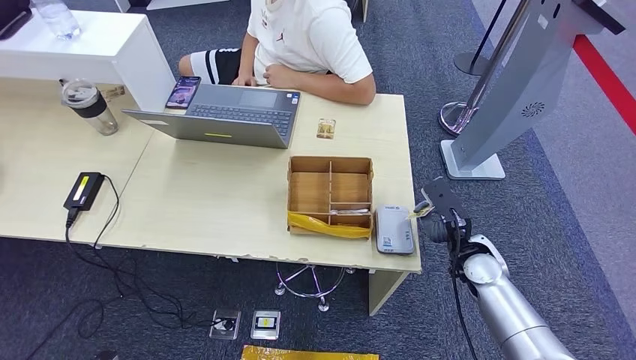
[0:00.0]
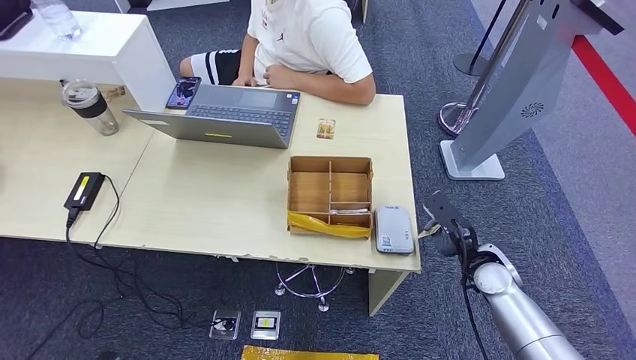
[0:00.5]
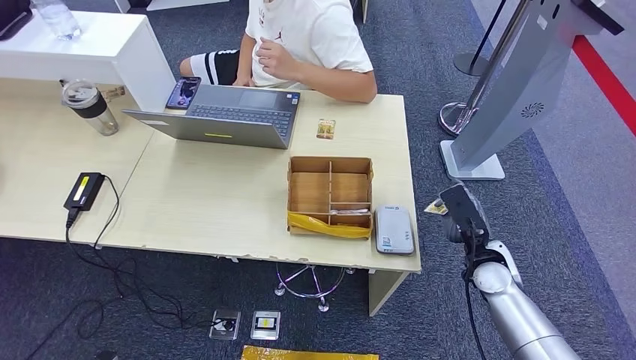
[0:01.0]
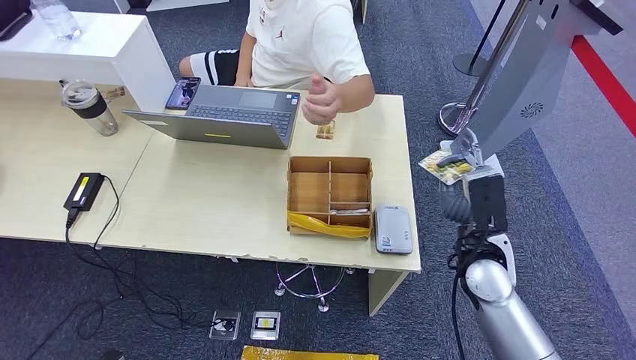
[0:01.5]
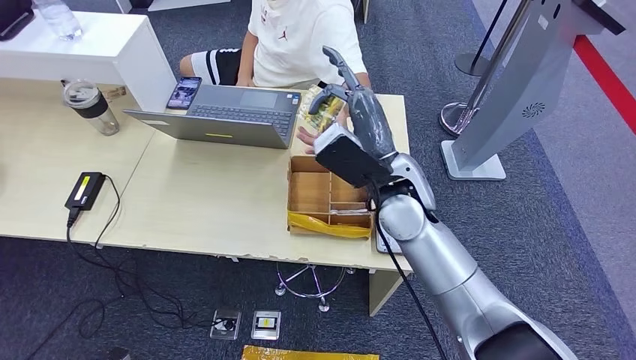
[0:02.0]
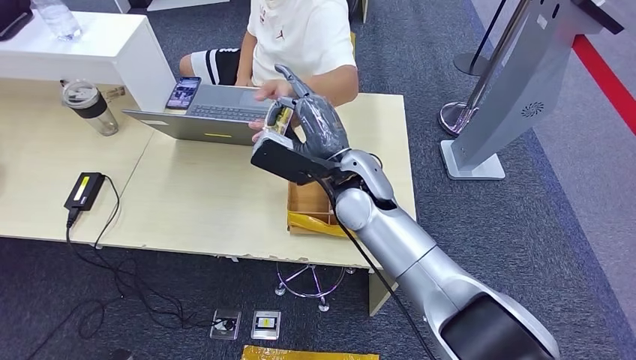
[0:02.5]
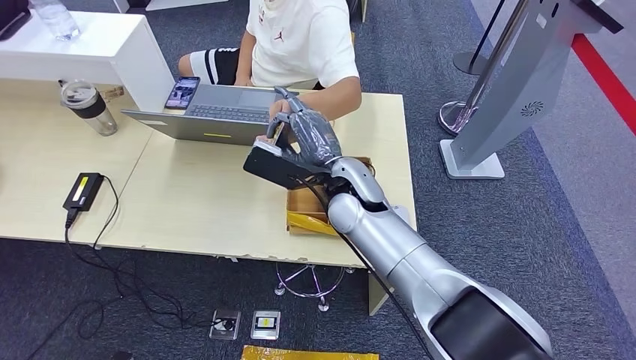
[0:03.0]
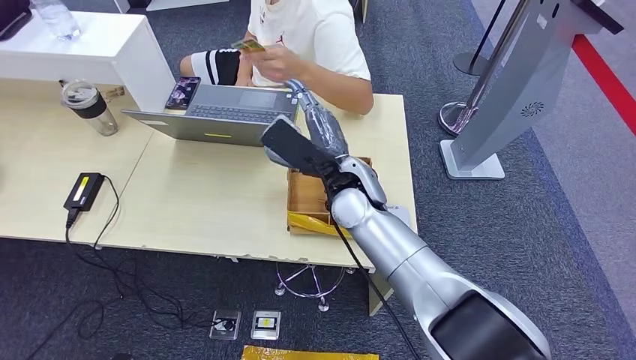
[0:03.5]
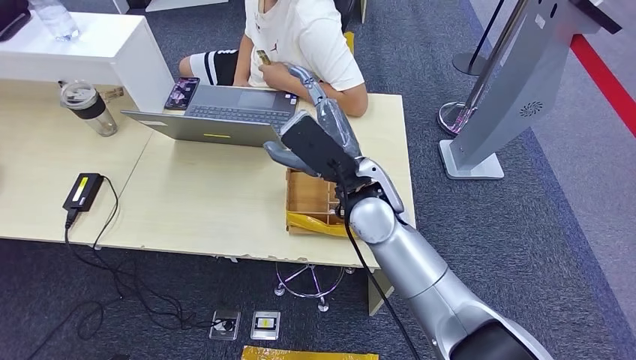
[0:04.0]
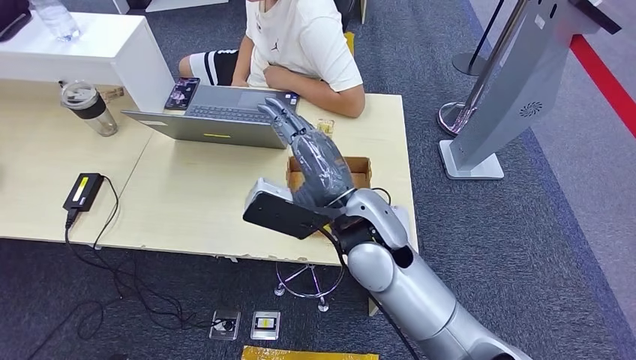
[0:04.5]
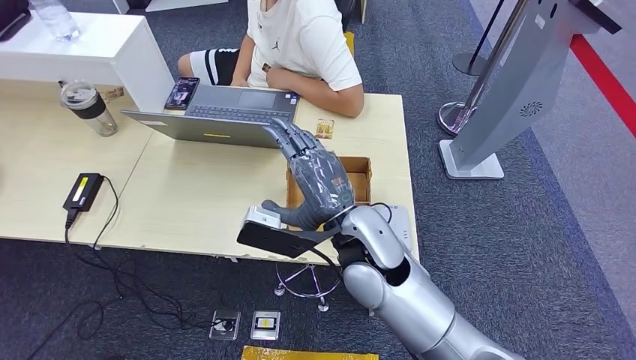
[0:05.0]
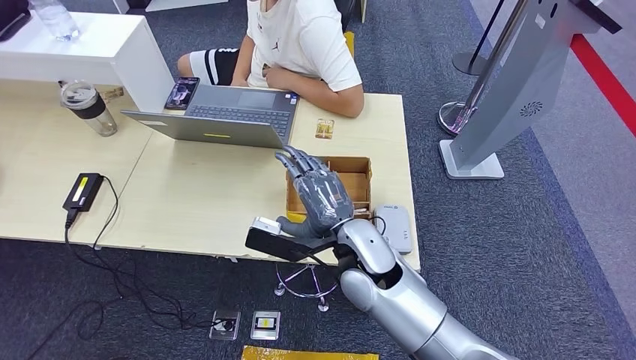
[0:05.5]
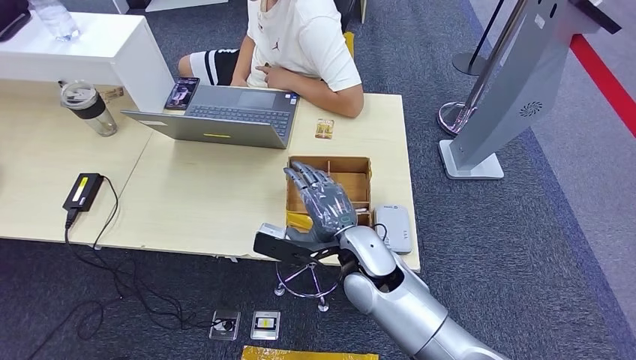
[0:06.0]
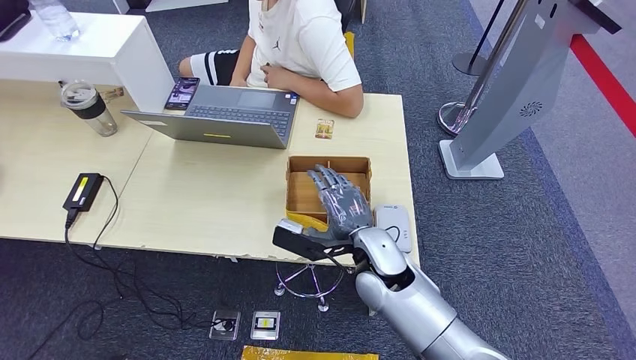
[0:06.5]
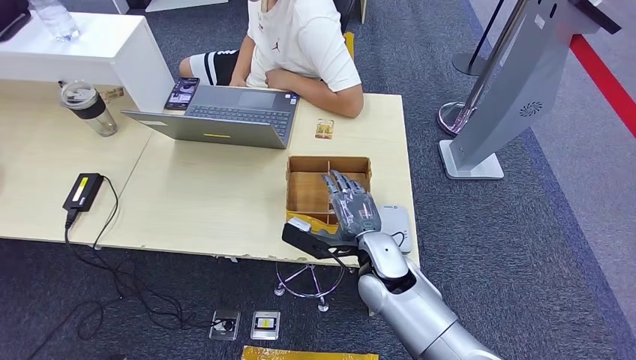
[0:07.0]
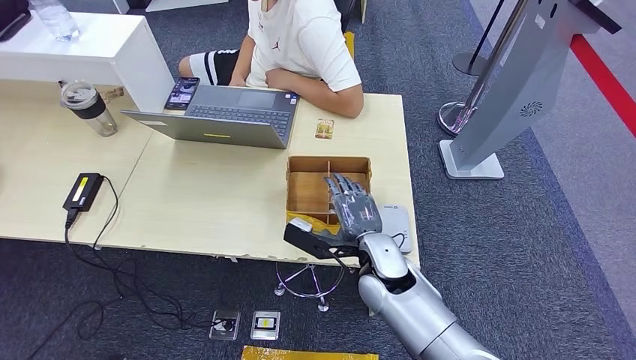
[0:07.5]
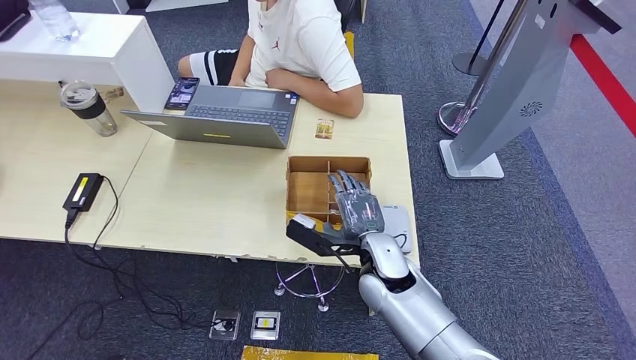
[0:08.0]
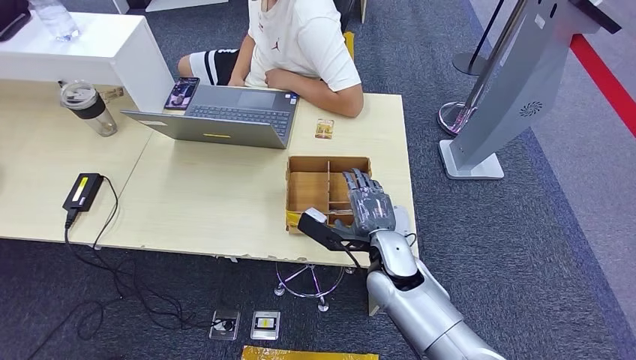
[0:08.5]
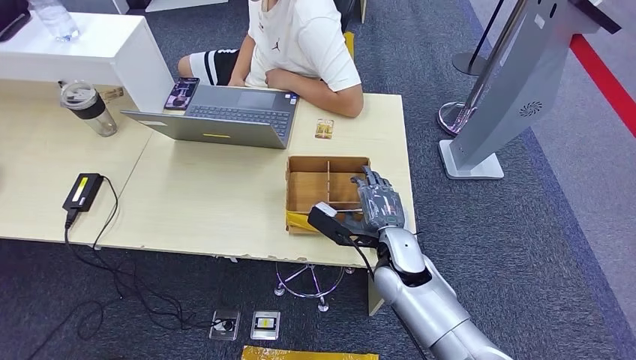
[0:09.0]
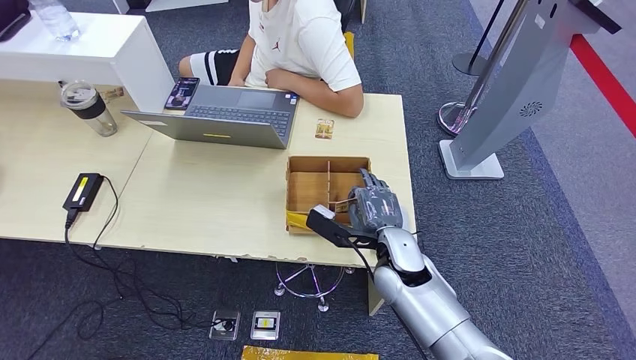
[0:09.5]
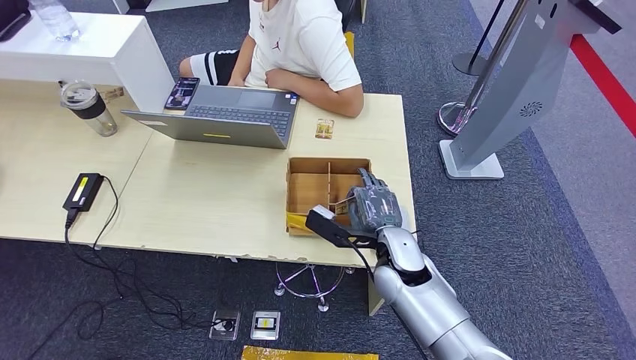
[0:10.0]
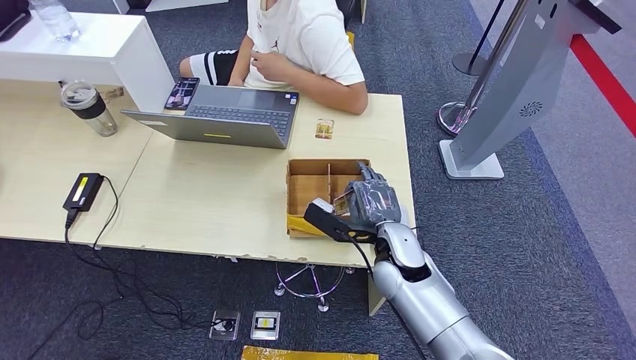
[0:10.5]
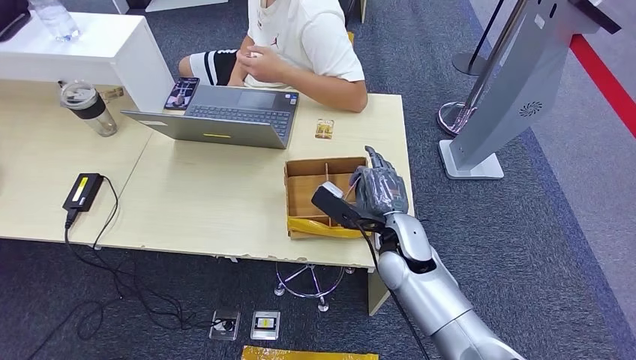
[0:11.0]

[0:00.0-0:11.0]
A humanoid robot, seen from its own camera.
Step, 0:00.0 to 0:02.5: Hand the ID card to the person.
0:00.0 to 0:02.0: The right hand moves to the left and upward, about 25 cm.
0:02.0 to 0:03.5: The right hand moves to the left, about 5 cm.
0:03.5 to 0:05.5: The right hand is displaced backward by some 5 cm.
0:05.5 to 0:07.5: The right hand is displaced downward by some 5 cm.
0:07.5 to 0:11.0: The hands move only a little.

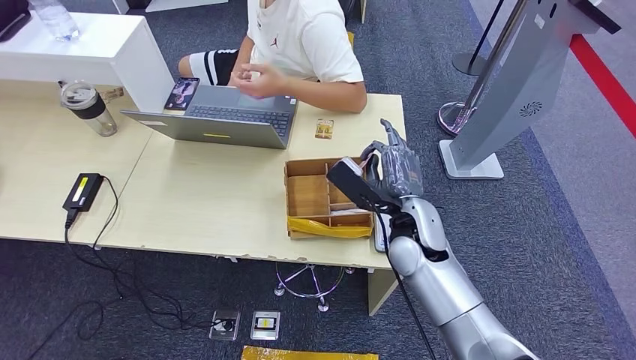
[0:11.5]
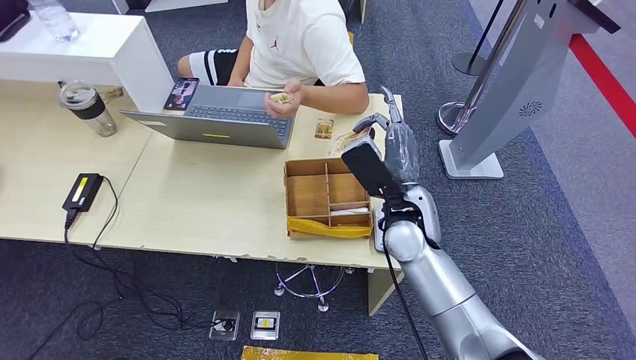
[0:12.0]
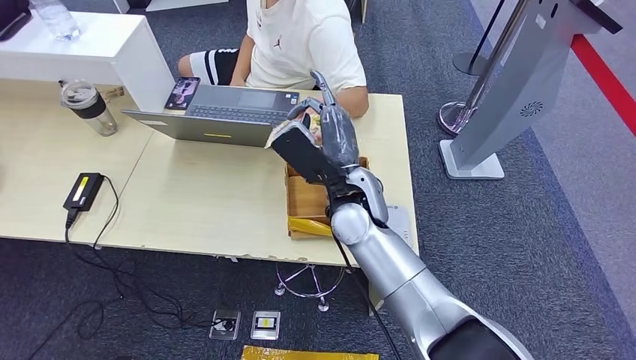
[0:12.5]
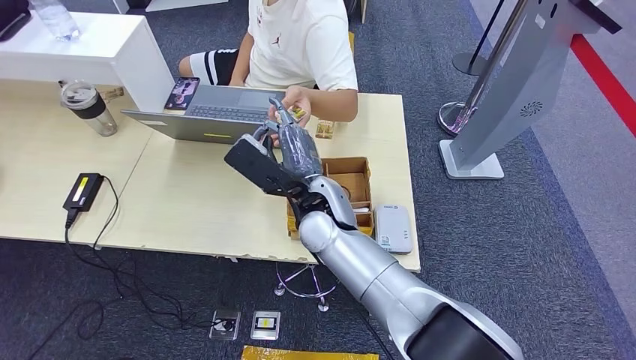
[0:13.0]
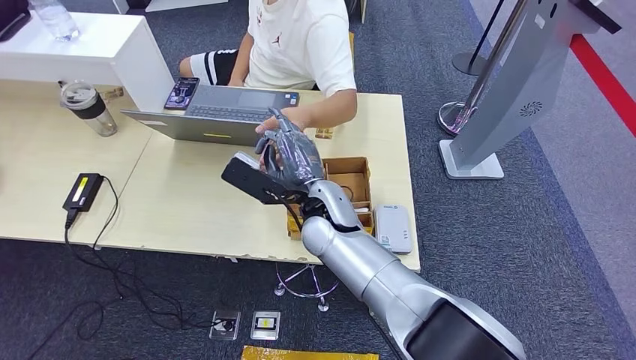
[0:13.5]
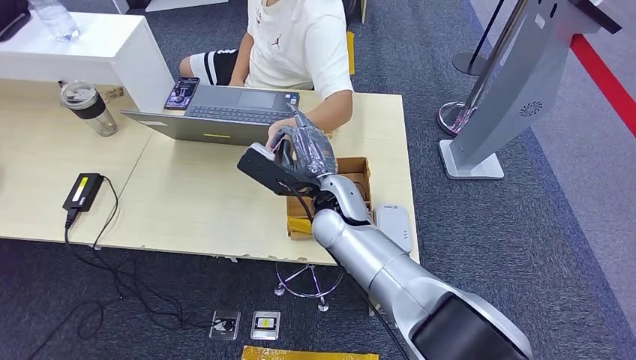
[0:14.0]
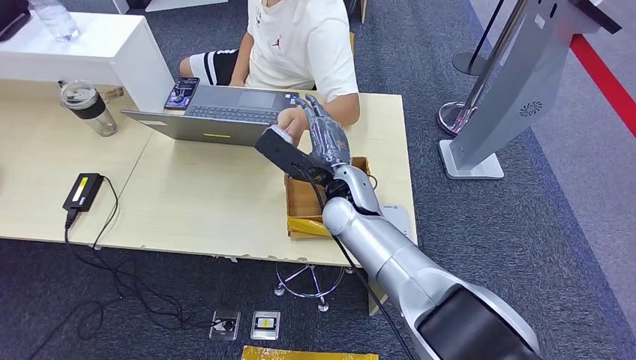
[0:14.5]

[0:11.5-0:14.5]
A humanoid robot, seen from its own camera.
Step, 0:12.5 to 0:14.5: Hand the room key to the person.
0:11.5 to 0:13.0: The right hand travels to the left by approximately 15 cm.
0:13.0 to 0:14.5: The hands make only small movements.
